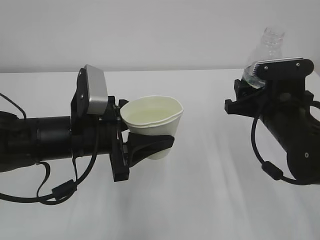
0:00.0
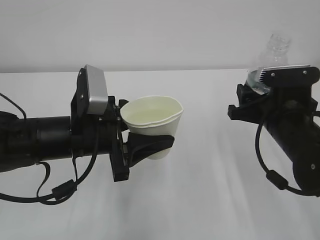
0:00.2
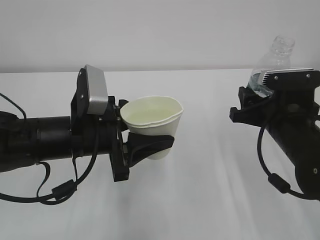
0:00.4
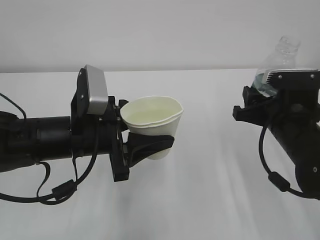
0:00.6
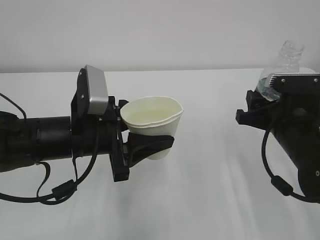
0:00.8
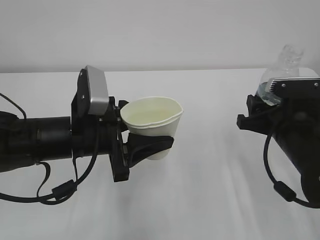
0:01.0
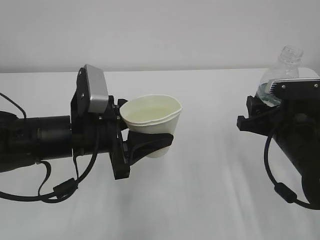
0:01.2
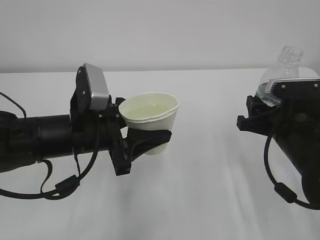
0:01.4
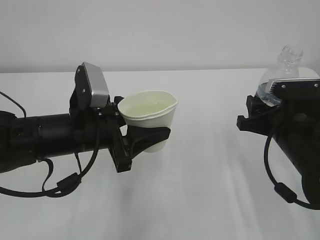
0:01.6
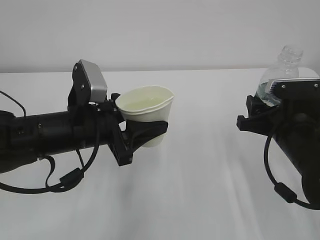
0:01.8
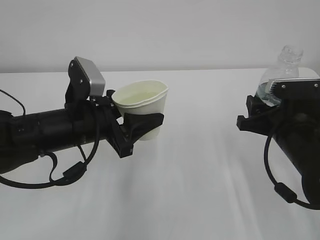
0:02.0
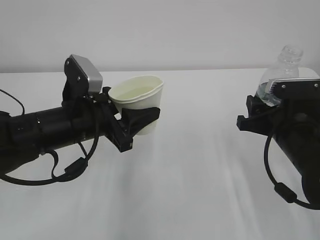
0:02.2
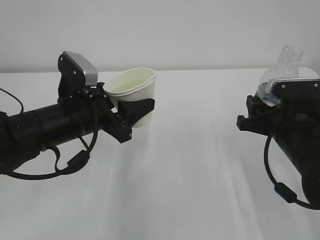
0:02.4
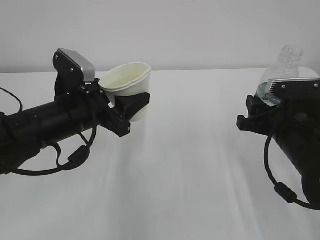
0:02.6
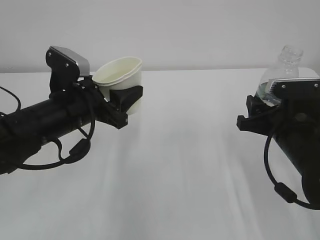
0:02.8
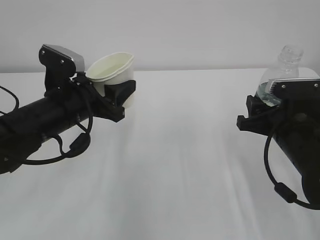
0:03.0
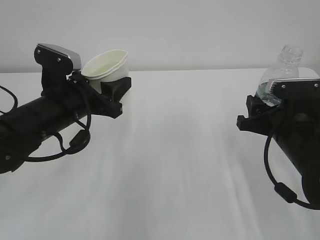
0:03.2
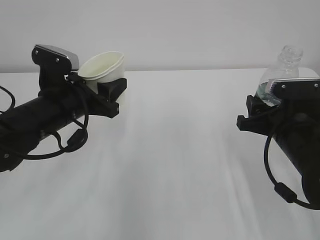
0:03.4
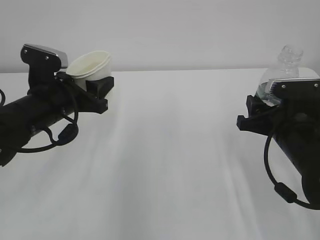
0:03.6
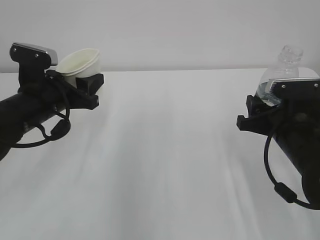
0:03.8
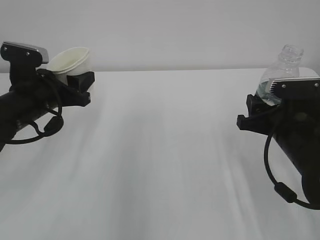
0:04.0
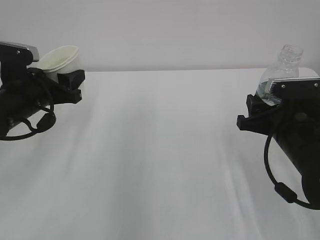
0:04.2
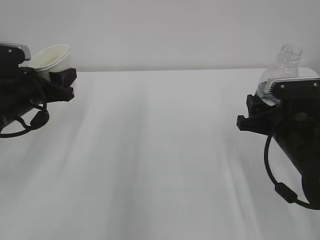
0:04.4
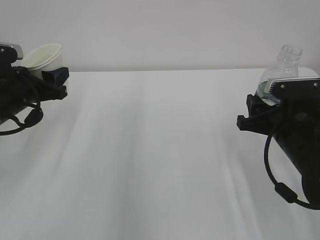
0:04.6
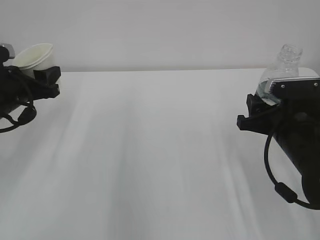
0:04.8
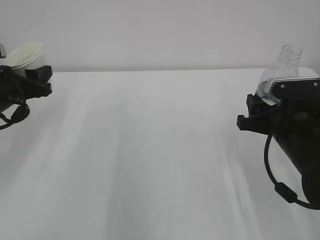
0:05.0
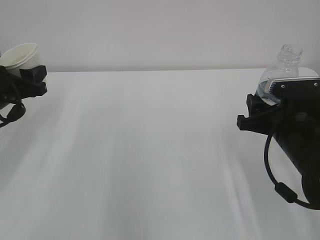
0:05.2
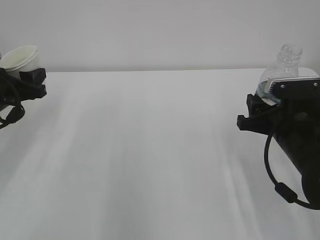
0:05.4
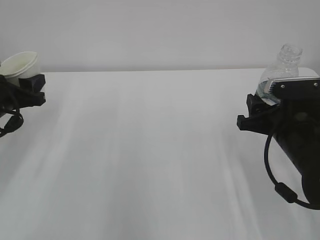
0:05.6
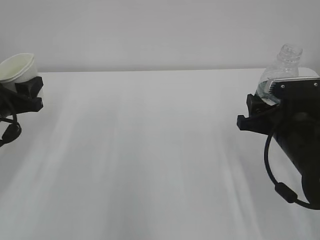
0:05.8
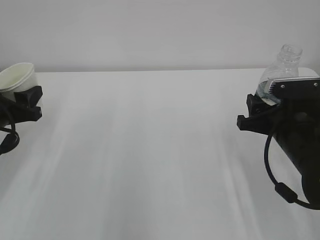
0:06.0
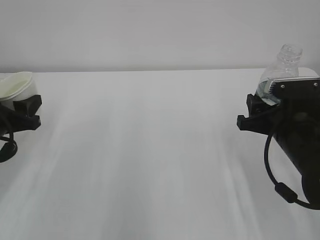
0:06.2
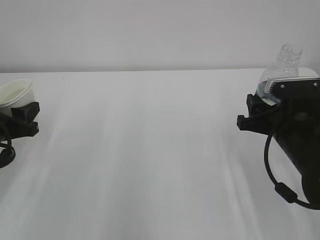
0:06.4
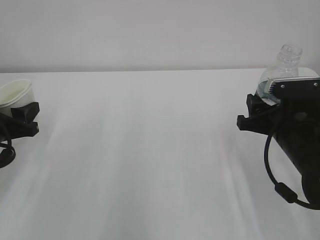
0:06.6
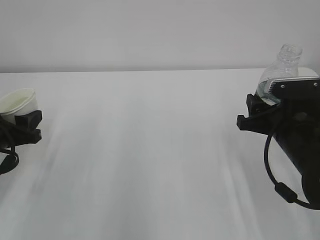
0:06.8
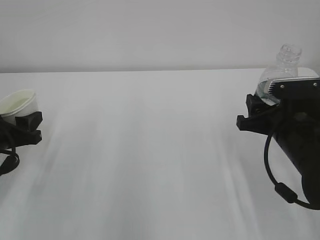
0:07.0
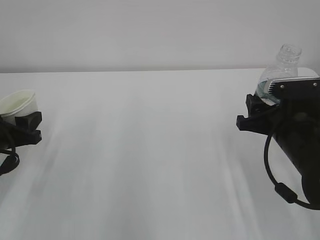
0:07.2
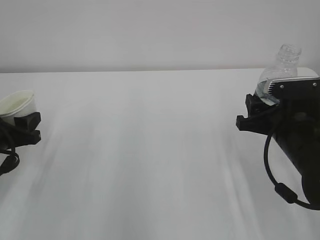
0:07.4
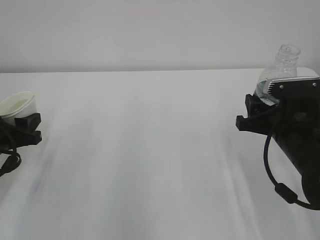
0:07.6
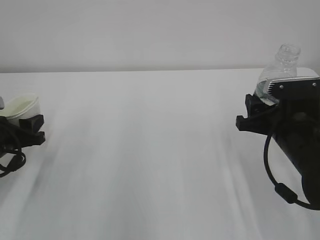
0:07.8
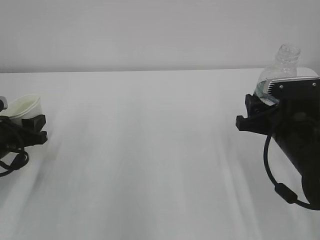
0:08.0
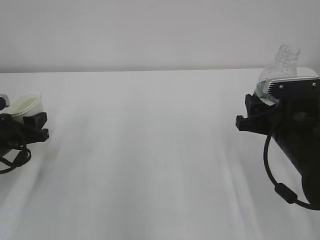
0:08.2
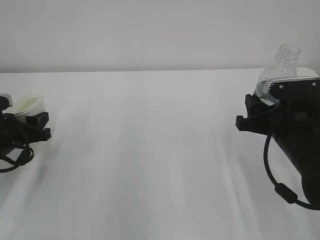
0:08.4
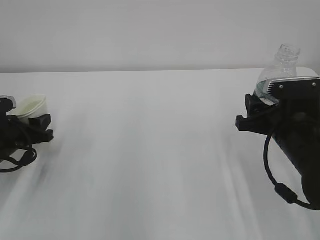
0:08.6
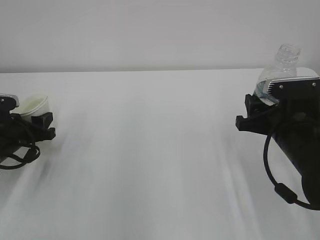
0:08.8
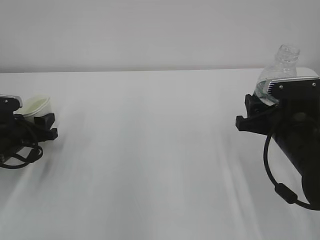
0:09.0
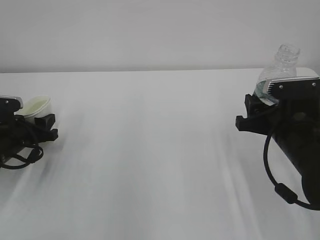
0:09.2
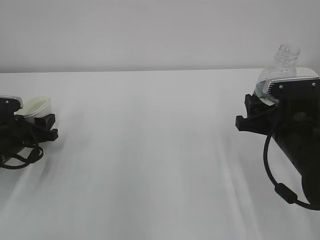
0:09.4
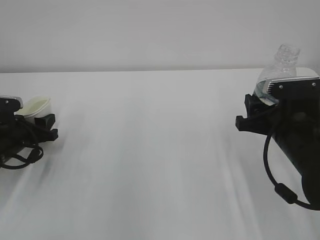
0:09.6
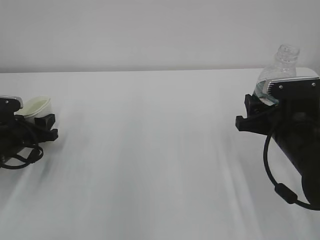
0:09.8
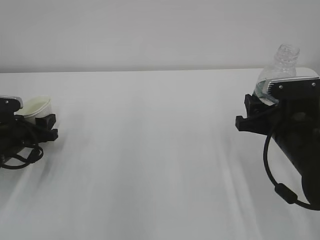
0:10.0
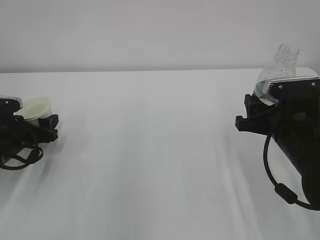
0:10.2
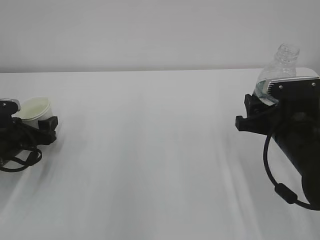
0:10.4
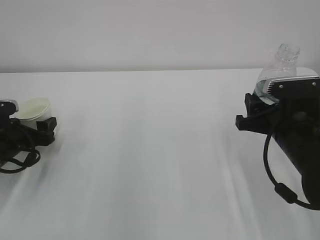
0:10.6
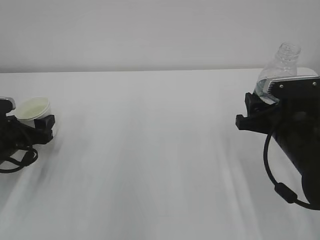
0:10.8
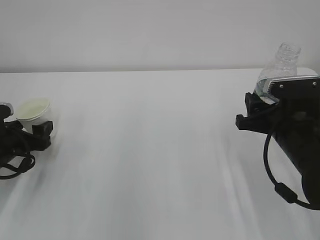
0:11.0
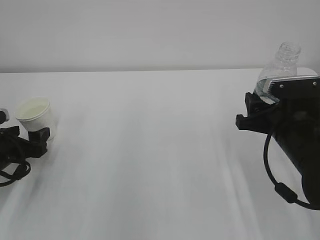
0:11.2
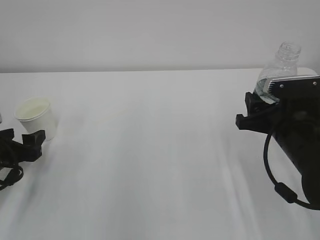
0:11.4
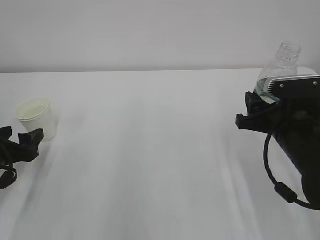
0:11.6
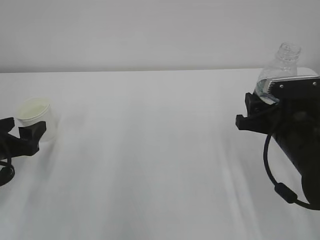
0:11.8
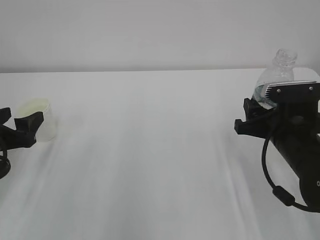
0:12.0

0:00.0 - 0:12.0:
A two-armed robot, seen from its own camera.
0:00.0 - 0:01.6: The grippers move only a little.
0:03.0 - 0:04.4: The left gripper moves to the left, some 10 cm.
0:04.4 - 0:06.0: The left gripper goes some 5 cm to the left.
0:06.0 - 0:07.6: There are only small adjustments of the grippers.
0:07.6 - 0:09.0: The left gripper shifts by approximately 5 cm.
0:09.0 - 0:10.4: The left gripper opens its fingers.
0:10.4 - 0:12.0: The left gripper is displaced backward and upward by approximately 10 cm.

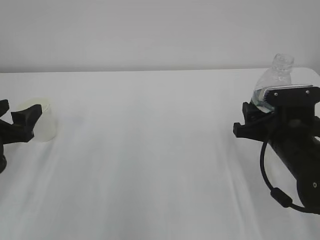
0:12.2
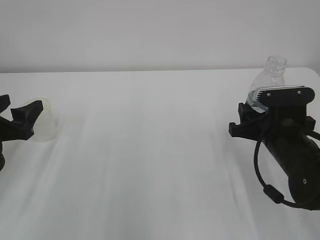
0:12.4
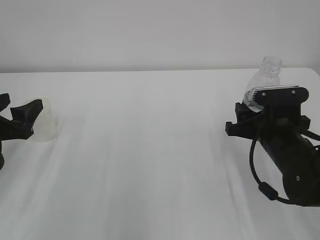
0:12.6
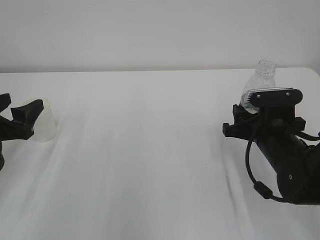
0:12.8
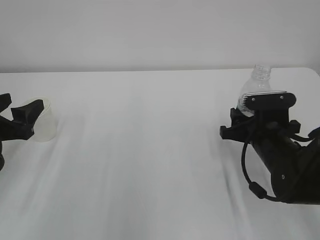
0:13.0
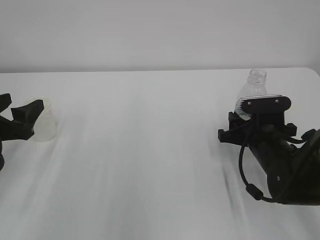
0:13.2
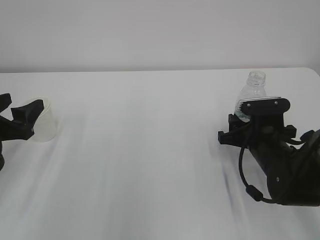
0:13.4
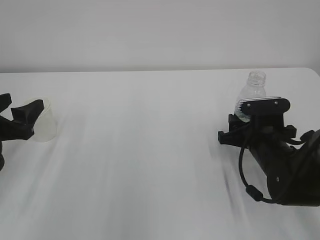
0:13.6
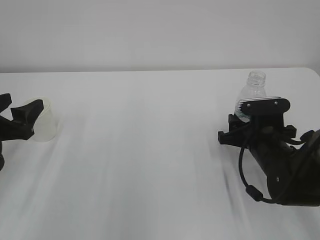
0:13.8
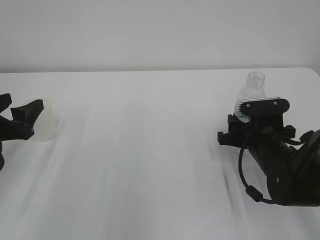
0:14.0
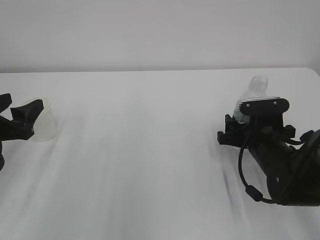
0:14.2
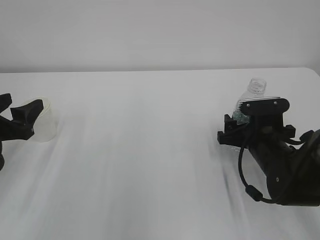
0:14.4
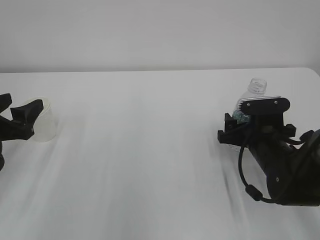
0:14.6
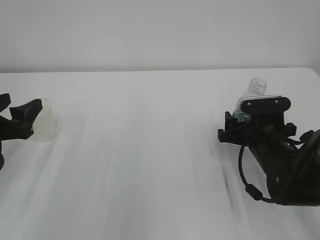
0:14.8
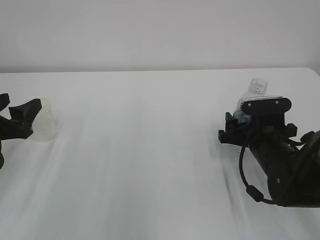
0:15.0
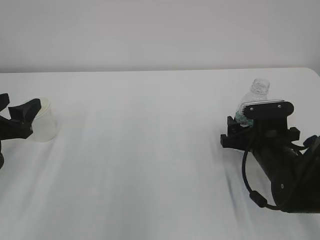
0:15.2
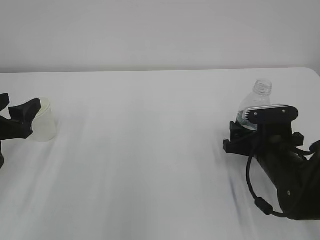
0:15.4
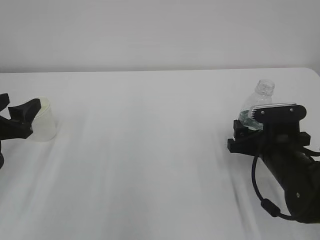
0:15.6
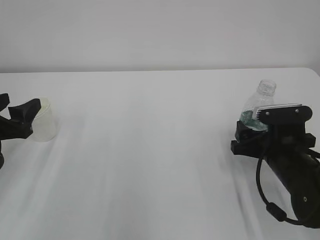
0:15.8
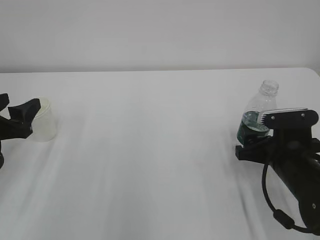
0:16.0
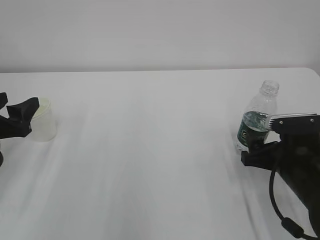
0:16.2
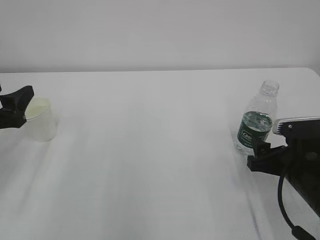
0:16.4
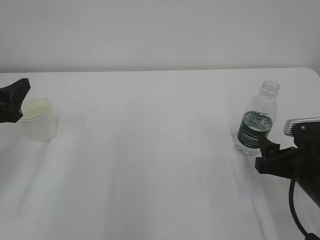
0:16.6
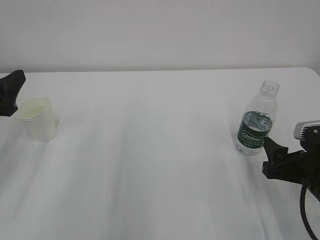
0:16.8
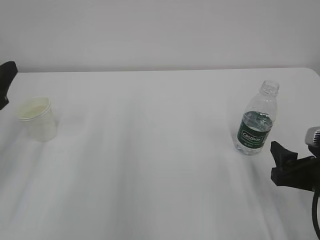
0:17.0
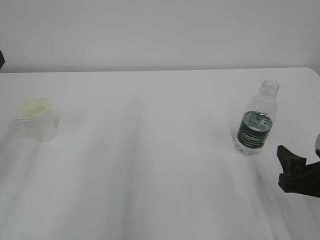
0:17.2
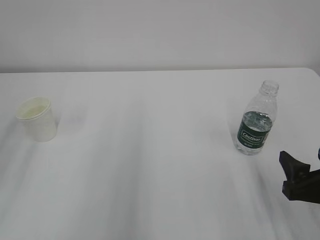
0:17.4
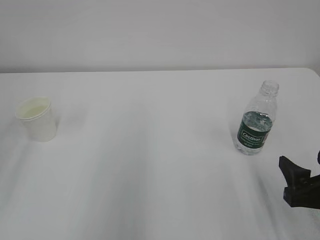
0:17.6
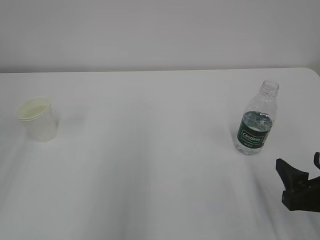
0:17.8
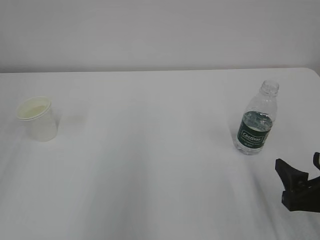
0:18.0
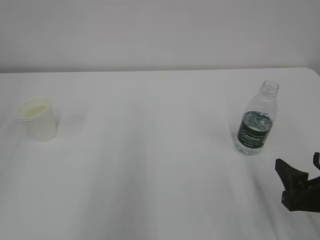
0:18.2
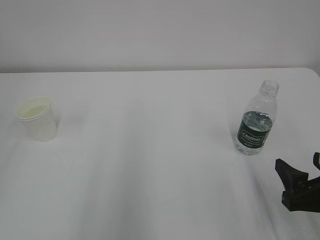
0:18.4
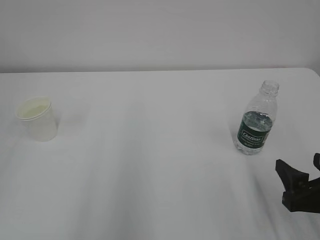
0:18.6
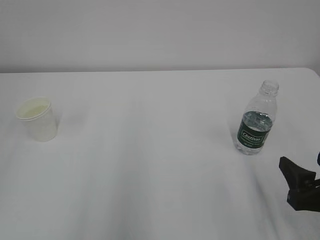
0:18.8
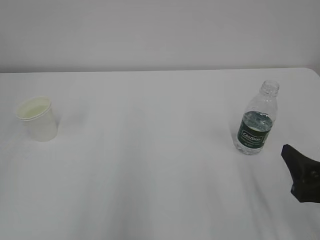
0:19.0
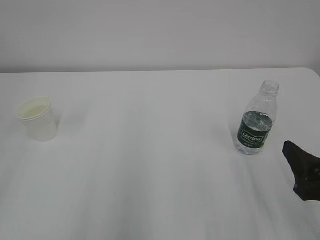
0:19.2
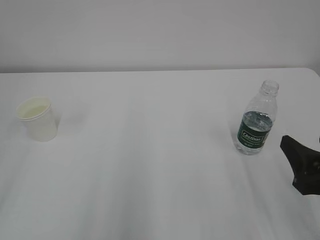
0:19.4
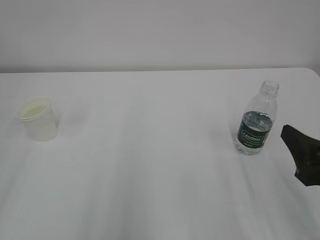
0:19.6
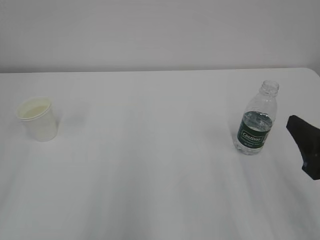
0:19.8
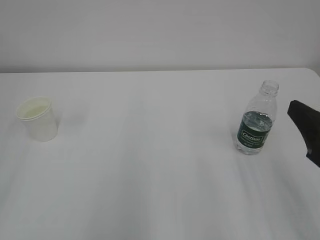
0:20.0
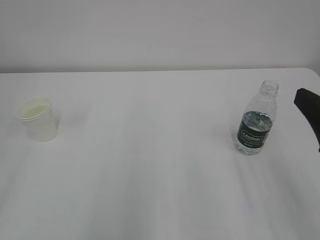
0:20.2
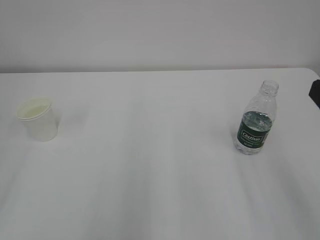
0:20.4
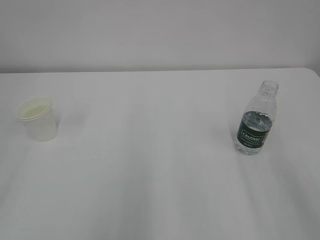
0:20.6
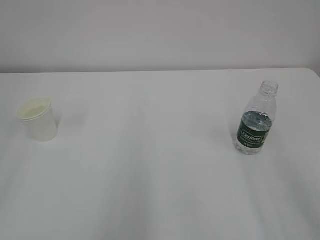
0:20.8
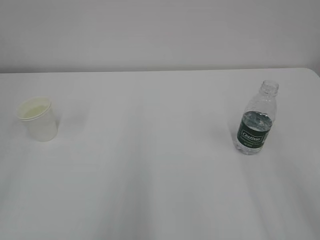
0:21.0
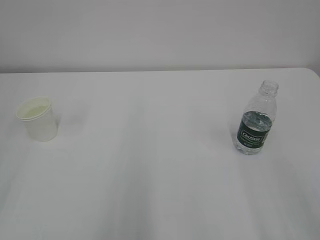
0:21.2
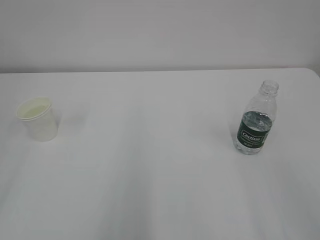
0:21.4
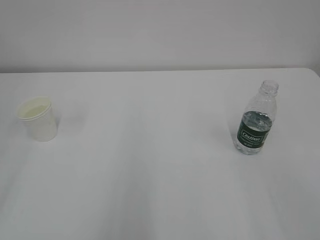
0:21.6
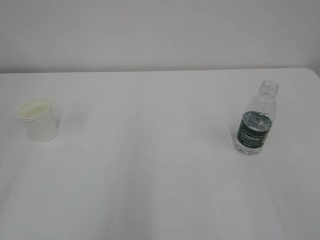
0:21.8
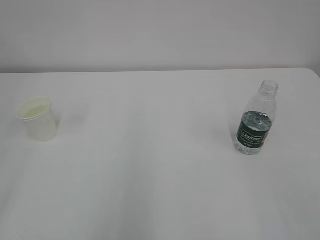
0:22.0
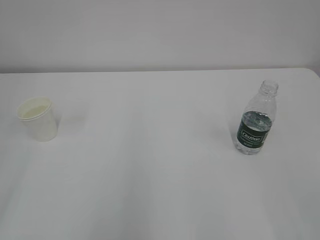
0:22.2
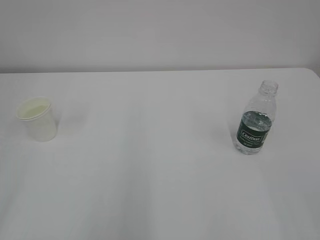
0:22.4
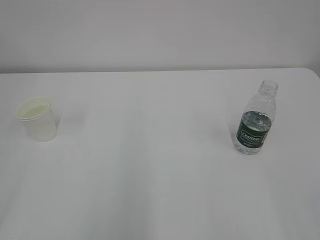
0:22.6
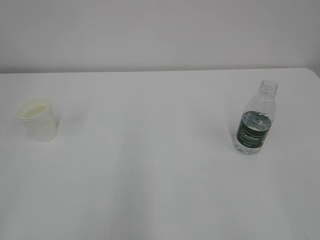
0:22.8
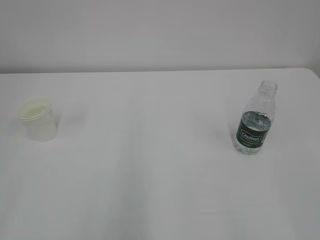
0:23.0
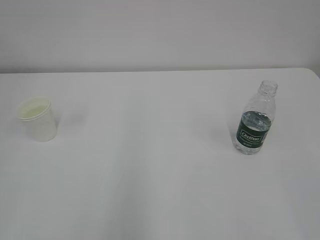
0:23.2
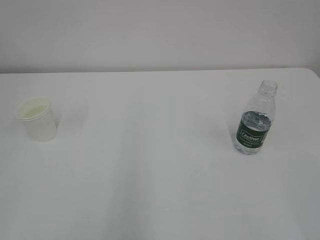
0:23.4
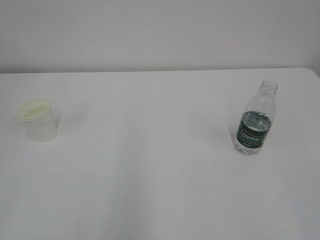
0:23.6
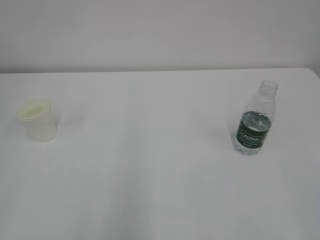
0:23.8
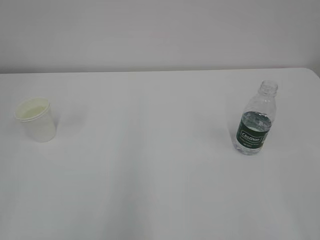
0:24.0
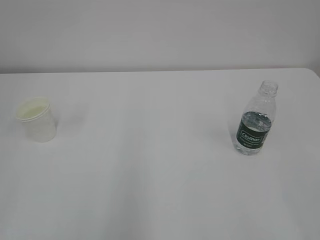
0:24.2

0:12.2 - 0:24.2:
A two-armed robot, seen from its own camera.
0:12.2 - 0:13.8: The right gripper shifts by about 5 cm.
0:13.8 - 0:15.2: The right gripper opens.
0:15.2 - 0:16.6: The right gripper goes approximately 10 cm backward.
0:16.6 - 0:18.2: The right gripper moves backward, some 5 cm. Meanwhile the left gripper goes approximately 20 cm backward and upward.
0:18.2 - 0:19.8: The right gripper is displaced upward by some 10 cm.
0:19.8 - 0:21.2: The right gripper shifts approximately 10 cm backward and upward.
